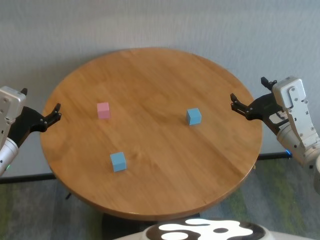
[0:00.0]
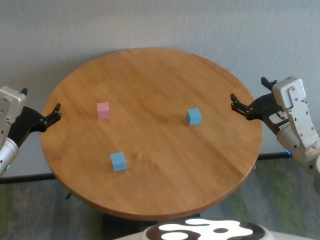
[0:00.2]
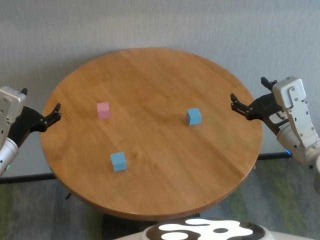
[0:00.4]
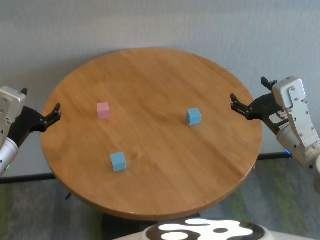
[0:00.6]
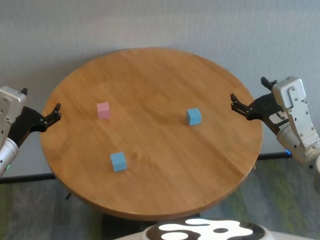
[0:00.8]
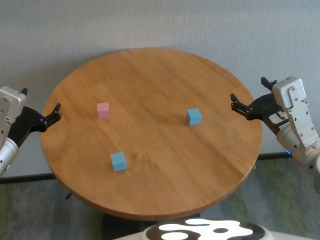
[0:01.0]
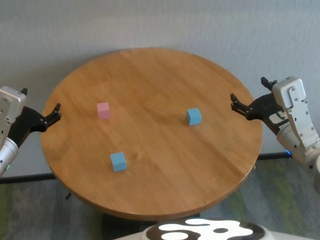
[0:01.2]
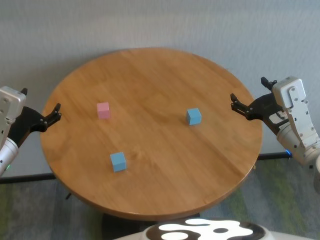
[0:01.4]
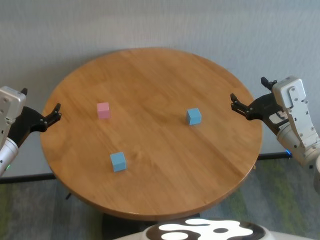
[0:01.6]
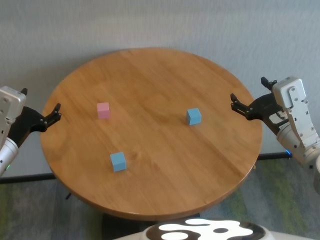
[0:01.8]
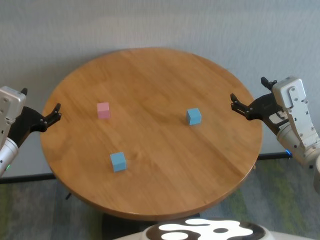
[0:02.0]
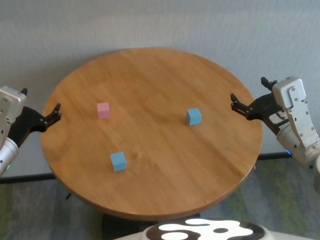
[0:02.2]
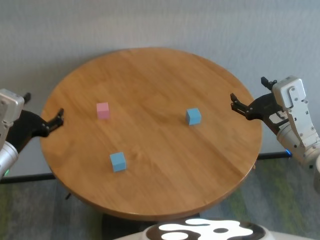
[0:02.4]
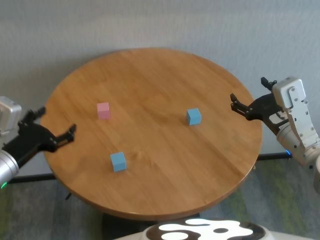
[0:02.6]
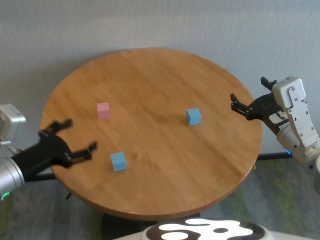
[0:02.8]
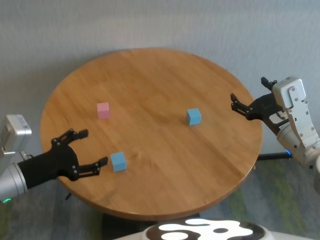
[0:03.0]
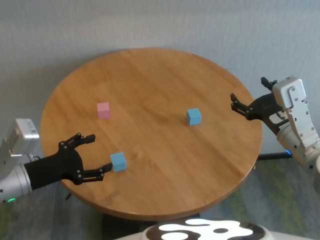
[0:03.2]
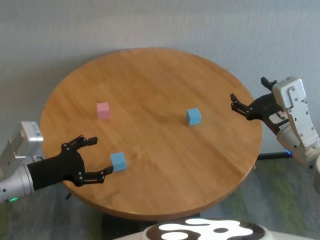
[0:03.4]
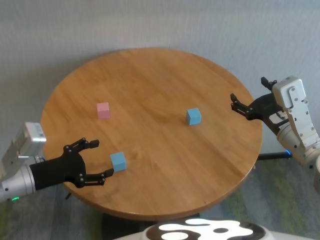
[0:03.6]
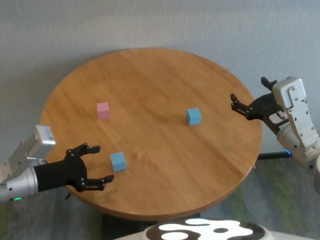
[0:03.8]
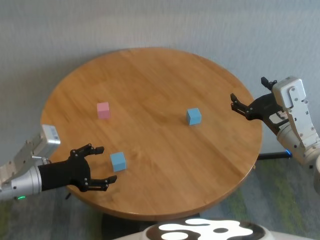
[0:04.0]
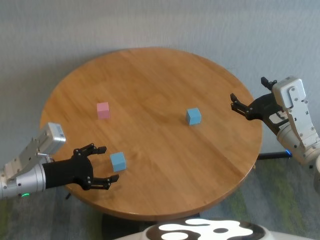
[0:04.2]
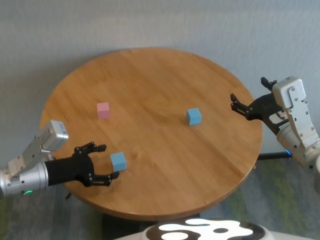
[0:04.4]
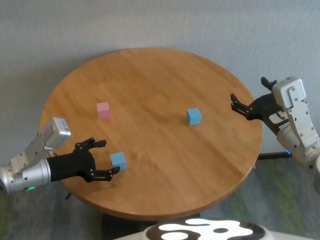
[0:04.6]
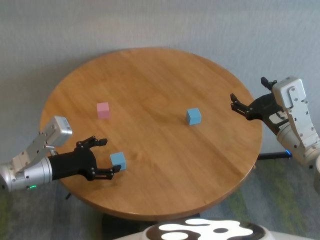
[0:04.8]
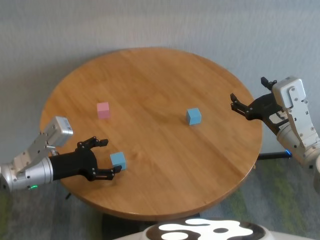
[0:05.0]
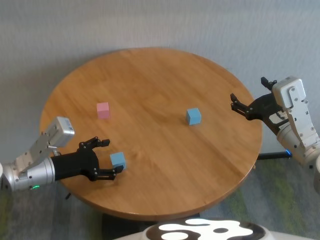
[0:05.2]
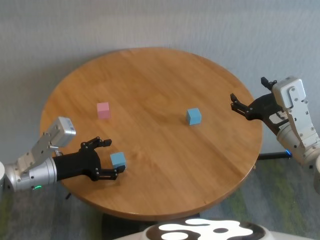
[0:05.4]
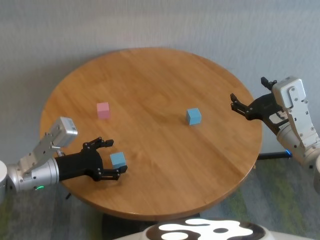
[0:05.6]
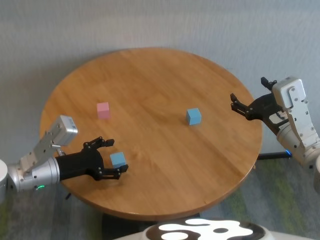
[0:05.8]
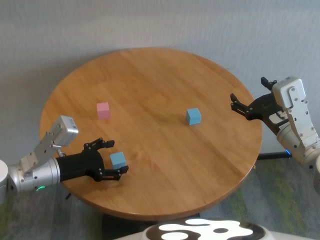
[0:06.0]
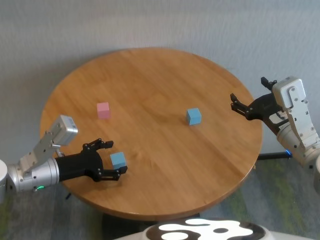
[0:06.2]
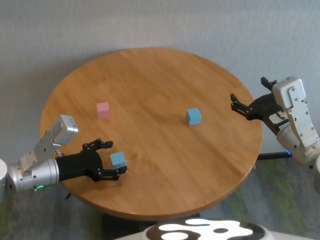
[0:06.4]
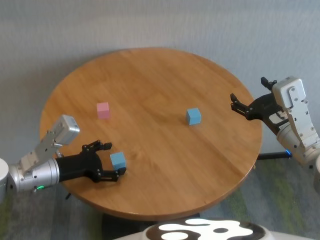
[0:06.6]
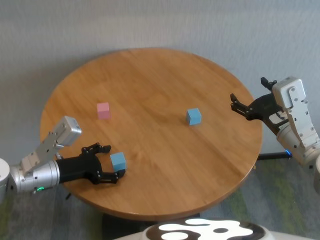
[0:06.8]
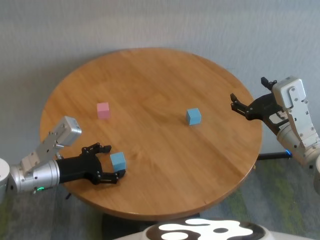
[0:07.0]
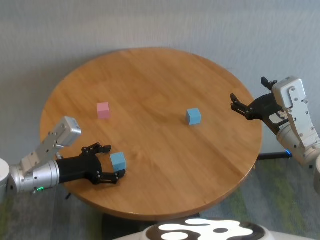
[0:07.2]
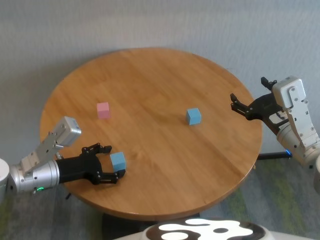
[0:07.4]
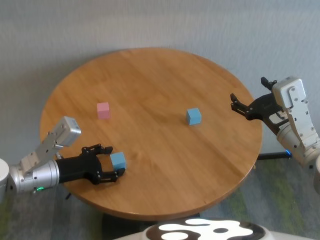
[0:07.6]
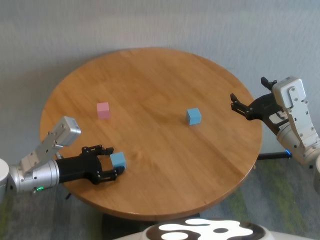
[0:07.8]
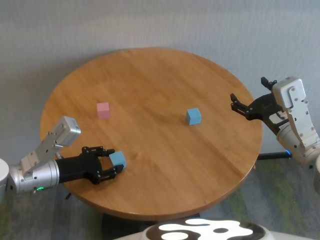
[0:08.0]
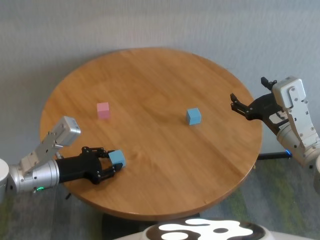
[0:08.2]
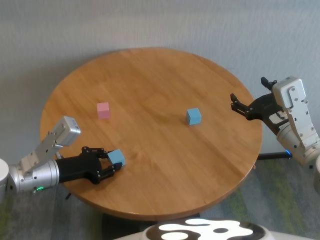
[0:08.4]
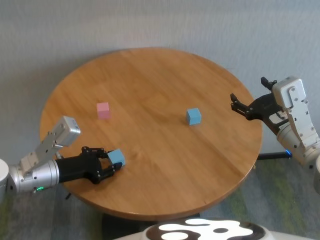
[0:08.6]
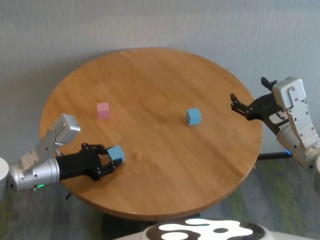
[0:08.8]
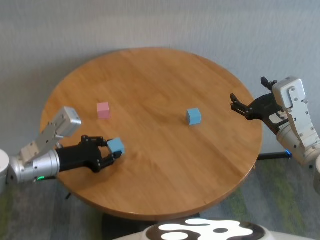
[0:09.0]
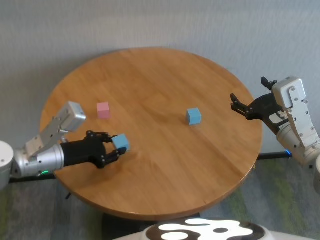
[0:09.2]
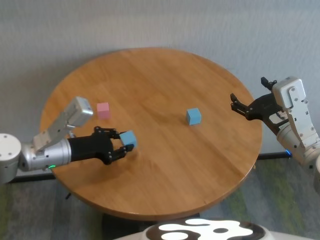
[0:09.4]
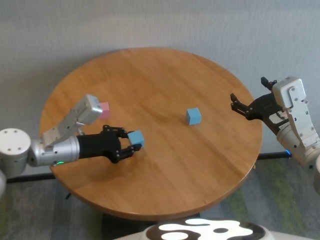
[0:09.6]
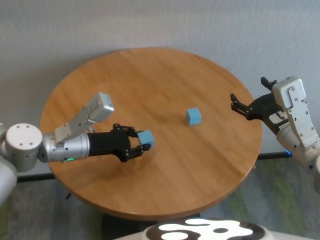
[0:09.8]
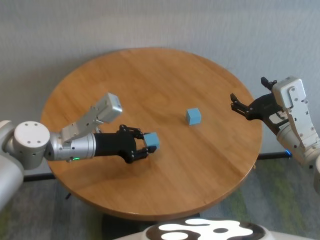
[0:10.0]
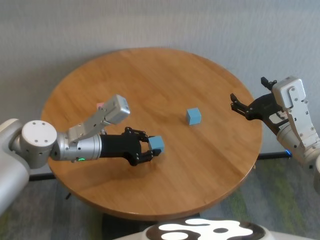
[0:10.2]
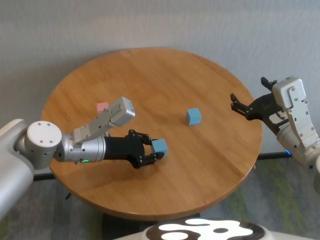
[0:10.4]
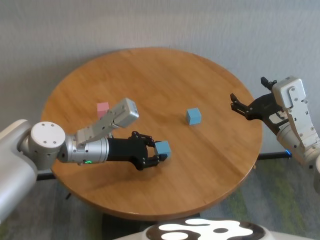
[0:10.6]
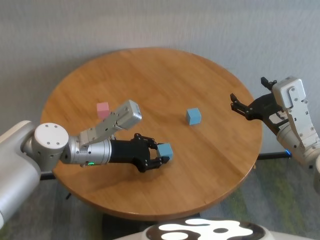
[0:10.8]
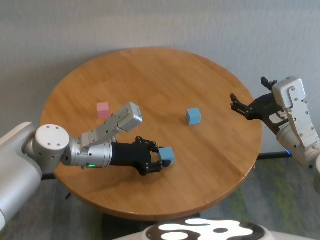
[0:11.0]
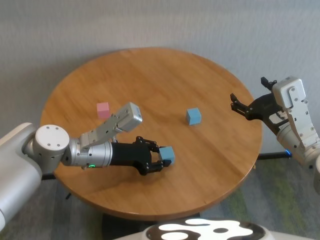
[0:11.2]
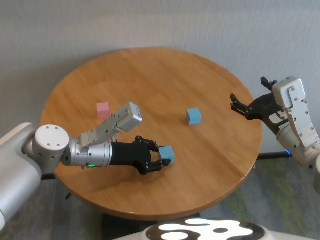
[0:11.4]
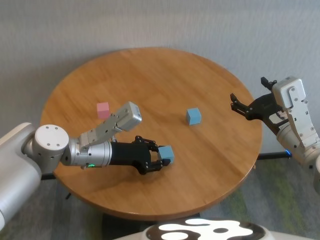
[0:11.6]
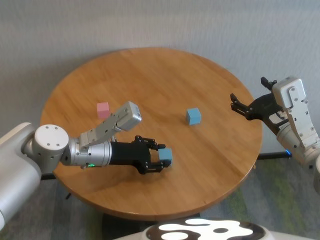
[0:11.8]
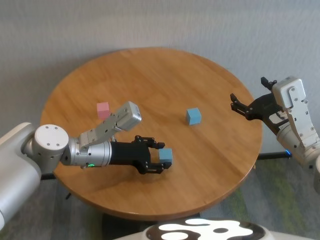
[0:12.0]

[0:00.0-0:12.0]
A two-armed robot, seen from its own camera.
Task of the whole recording: stack building blocks on the table.
Step, 0:00.0 to 0:08.2: Grasp the blue building block with left gripper.
Step, 0:08.4 to 0:11.8: Place the blue building block in the center of table with left gripper.

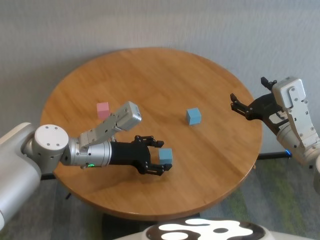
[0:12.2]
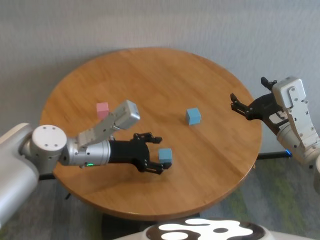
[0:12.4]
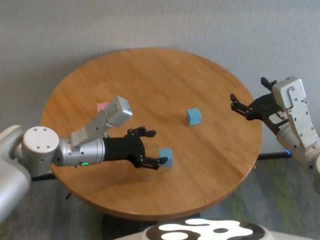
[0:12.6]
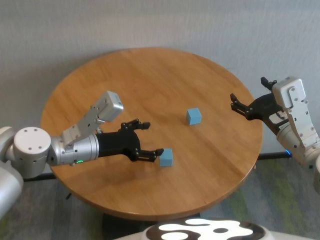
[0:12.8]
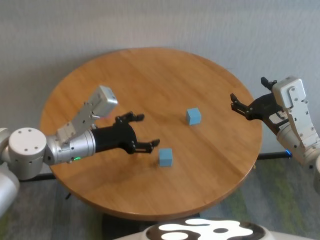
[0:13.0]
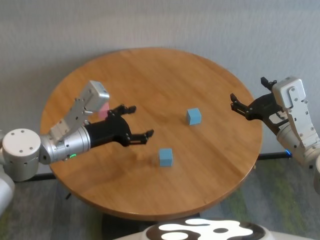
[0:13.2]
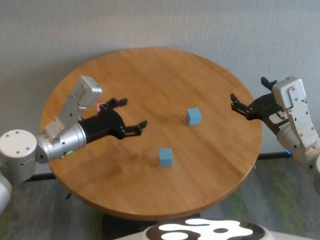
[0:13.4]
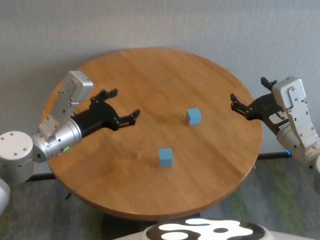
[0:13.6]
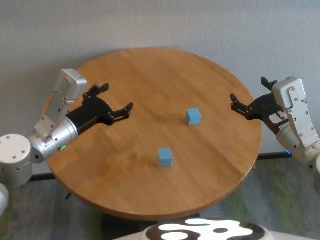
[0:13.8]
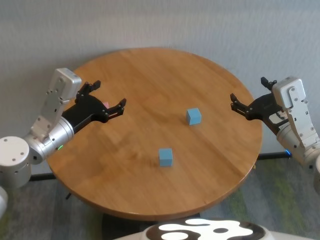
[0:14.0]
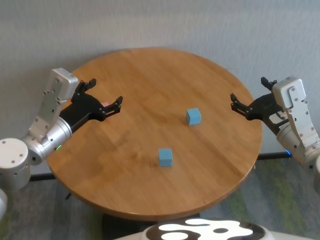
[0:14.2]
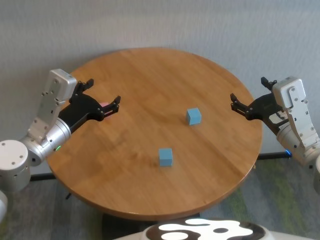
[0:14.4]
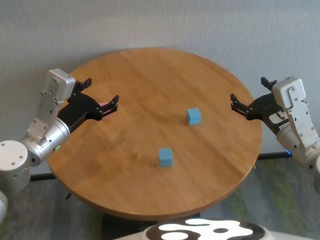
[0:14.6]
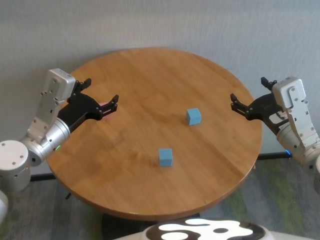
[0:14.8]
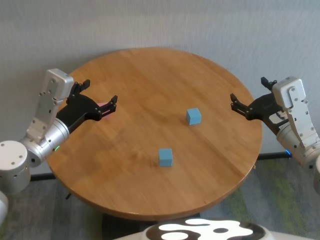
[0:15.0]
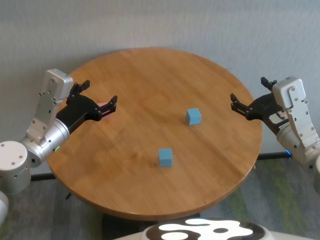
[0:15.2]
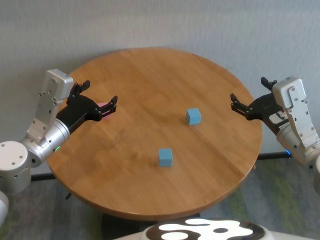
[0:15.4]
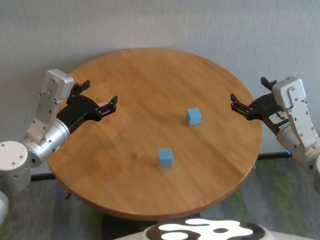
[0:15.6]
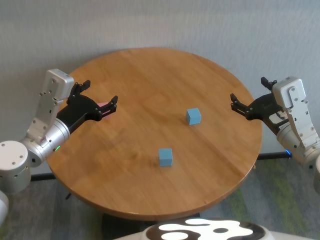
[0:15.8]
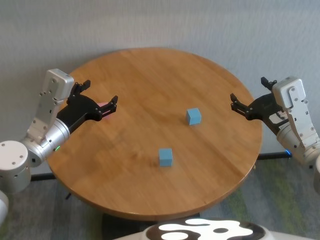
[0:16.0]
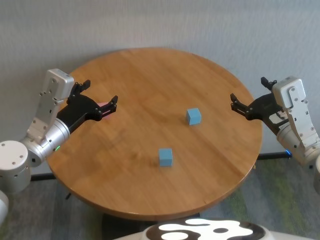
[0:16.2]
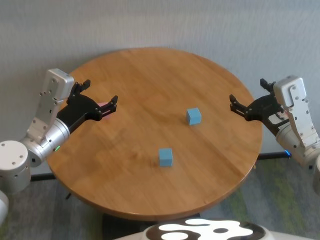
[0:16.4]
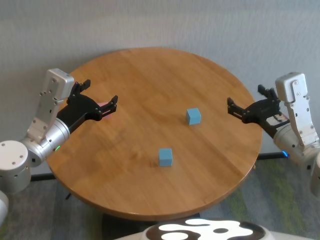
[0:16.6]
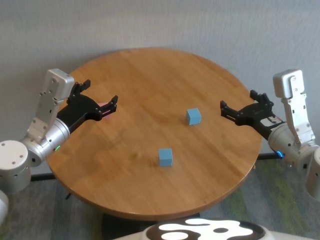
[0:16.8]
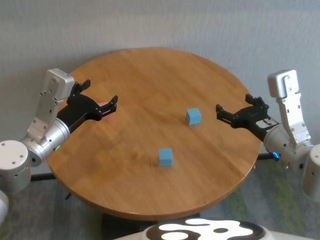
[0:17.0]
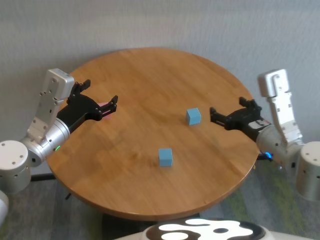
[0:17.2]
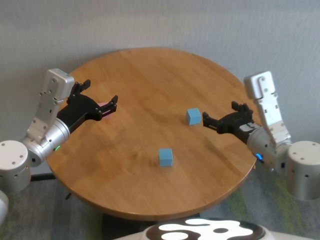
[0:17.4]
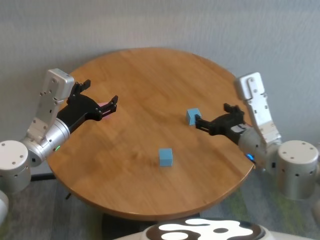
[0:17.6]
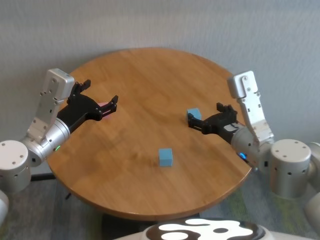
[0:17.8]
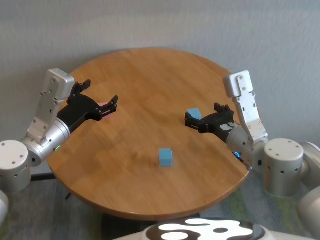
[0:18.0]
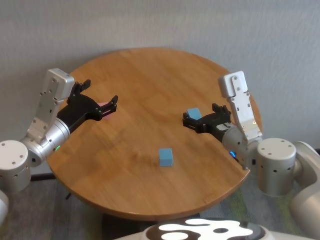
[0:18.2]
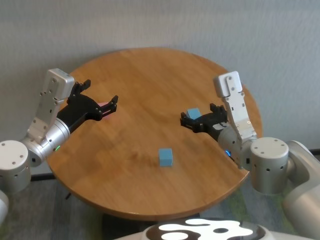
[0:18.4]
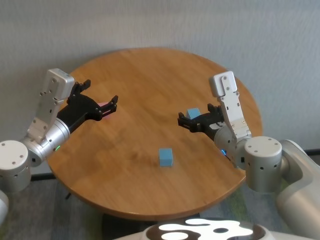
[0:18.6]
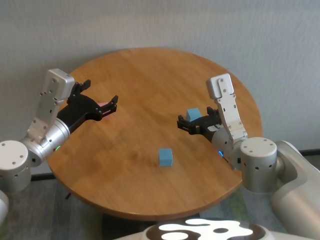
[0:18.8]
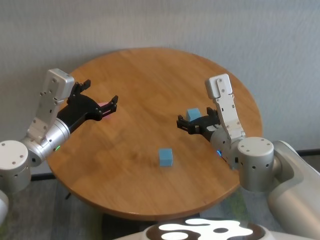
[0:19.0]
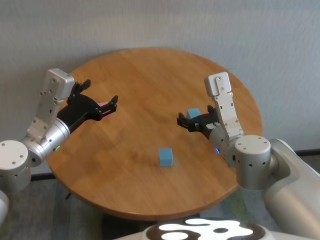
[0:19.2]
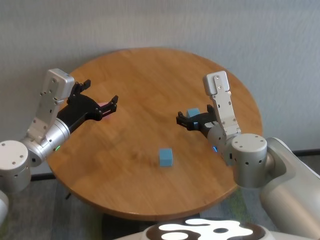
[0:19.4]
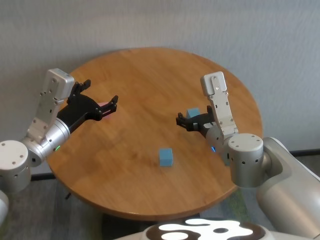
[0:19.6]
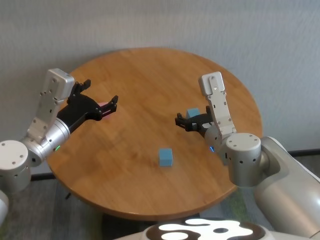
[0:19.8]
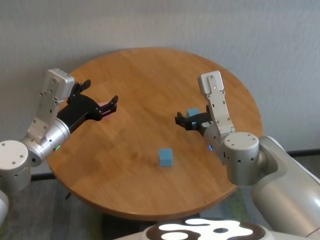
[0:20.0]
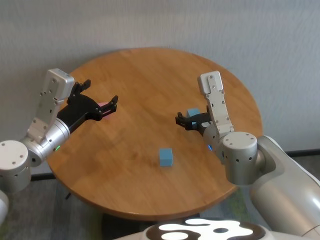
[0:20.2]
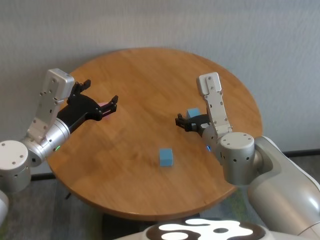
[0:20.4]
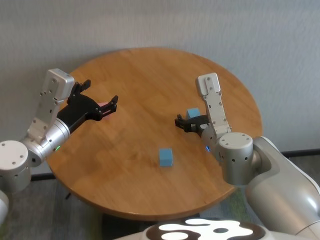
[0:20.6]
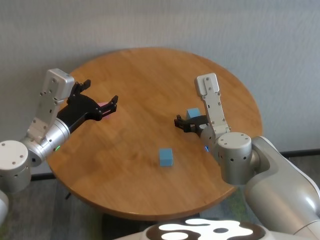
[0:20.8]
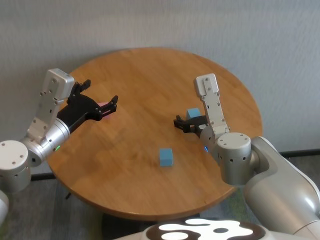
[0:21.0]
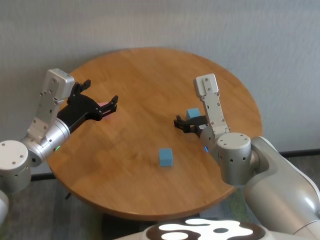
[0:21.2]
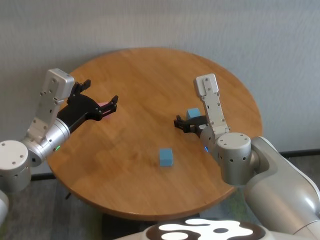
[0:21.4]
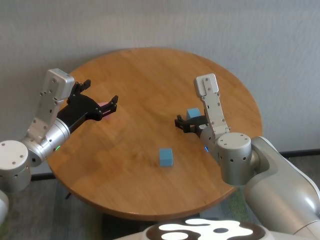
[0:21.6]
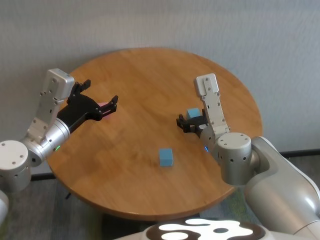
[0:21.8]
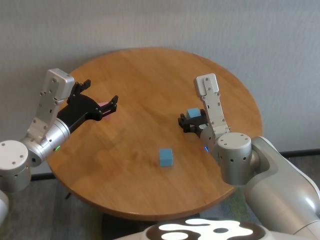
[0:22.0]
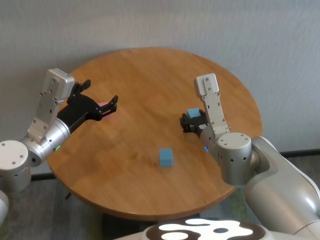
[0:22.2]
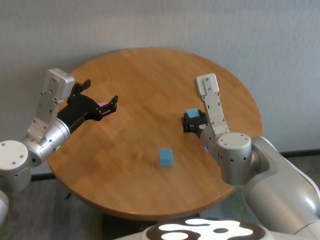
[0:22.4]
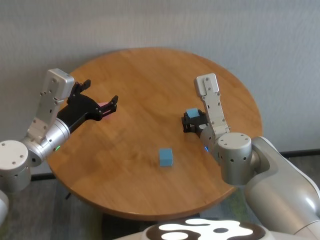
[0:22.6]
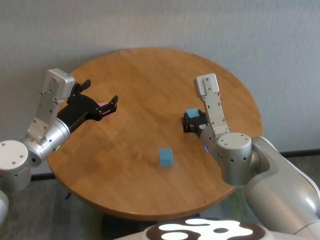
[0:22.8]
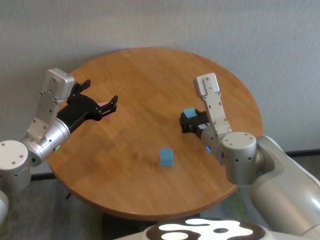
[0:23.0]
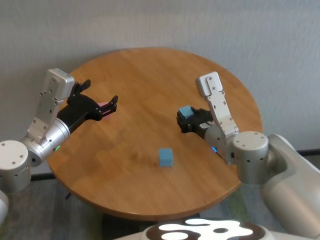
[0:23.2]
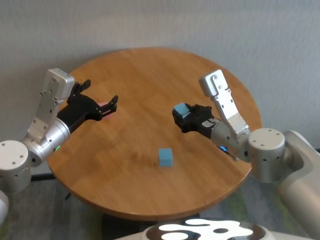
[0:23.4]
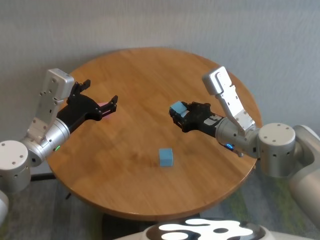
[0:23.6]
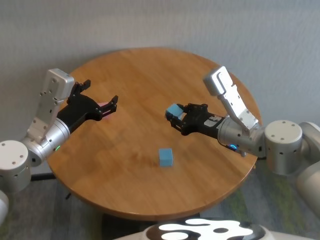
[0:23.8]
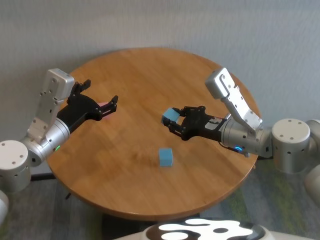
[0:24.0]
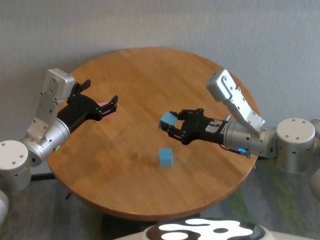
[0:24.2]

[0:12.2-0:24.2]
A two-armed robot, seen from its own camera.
Task of the whole recording: stack building blocks on the table.
Step, 0:12.2 to 0:22.2: Grasp the blue building block with right gripper.
